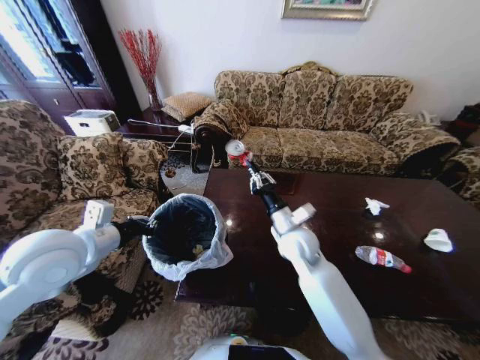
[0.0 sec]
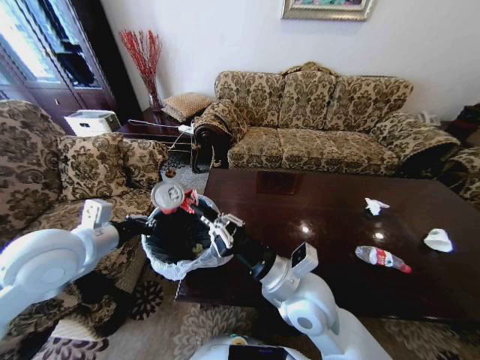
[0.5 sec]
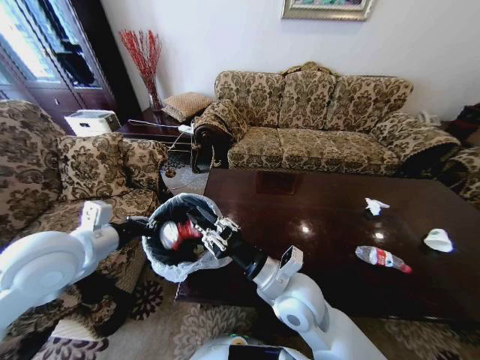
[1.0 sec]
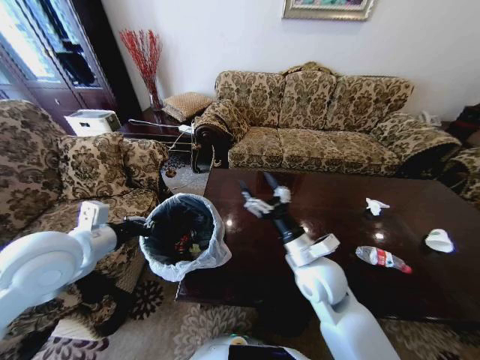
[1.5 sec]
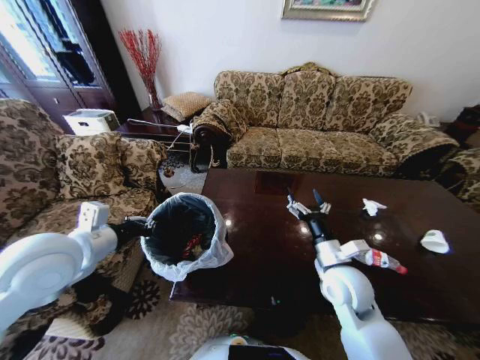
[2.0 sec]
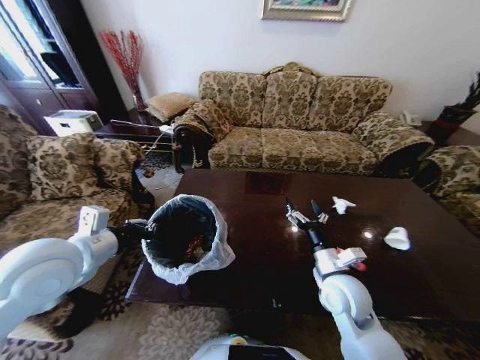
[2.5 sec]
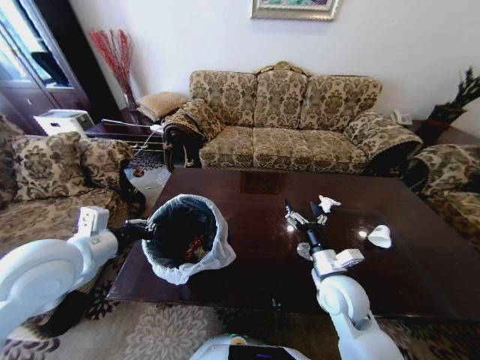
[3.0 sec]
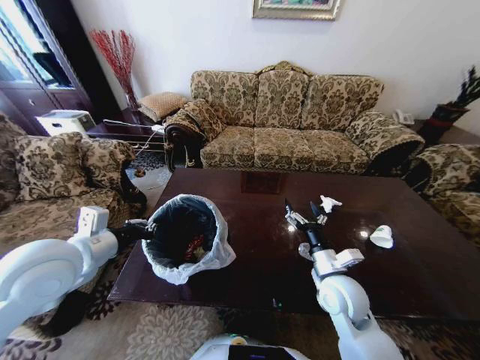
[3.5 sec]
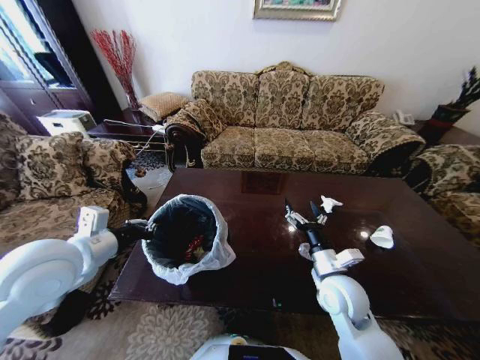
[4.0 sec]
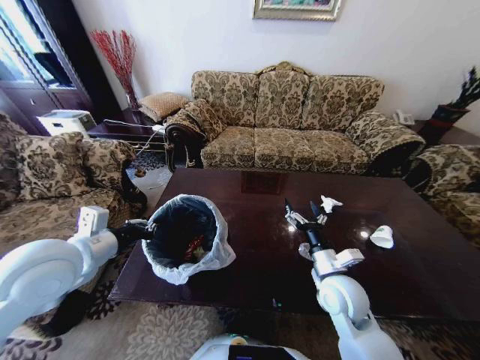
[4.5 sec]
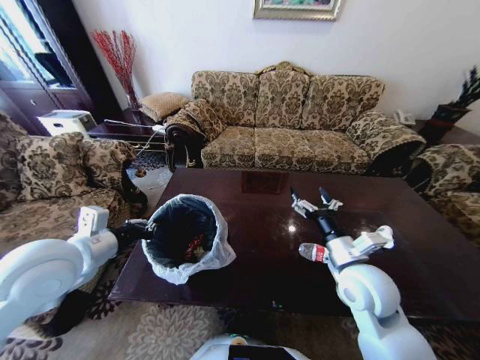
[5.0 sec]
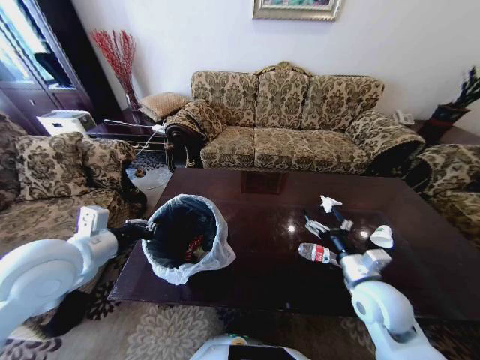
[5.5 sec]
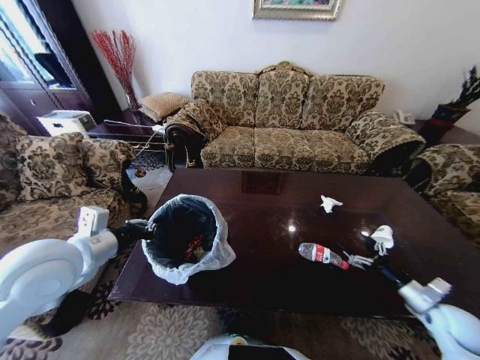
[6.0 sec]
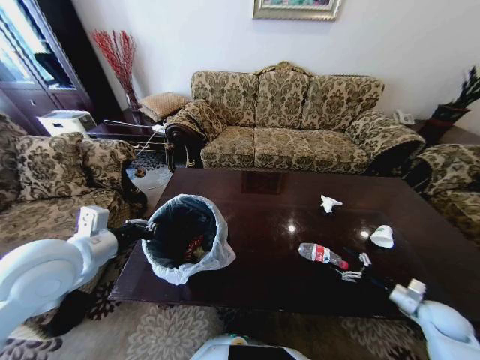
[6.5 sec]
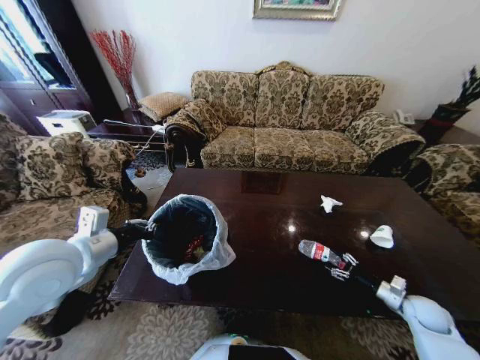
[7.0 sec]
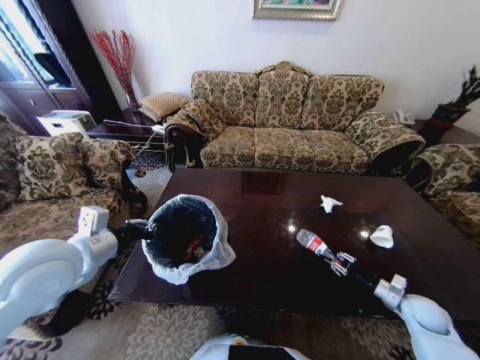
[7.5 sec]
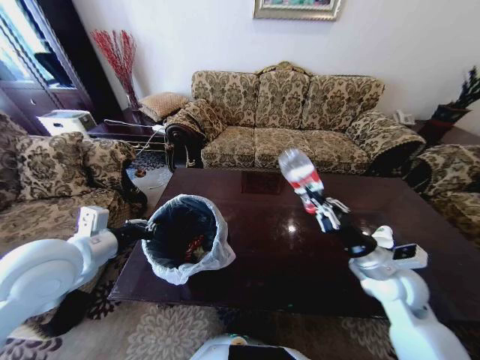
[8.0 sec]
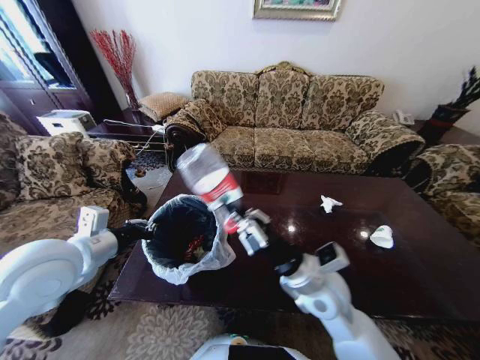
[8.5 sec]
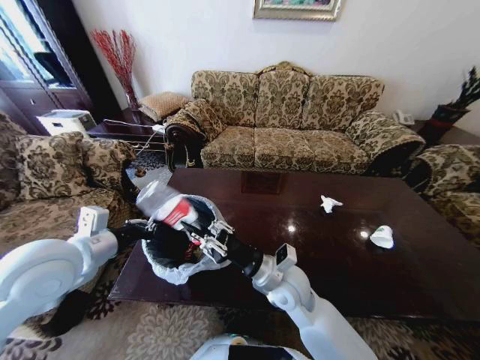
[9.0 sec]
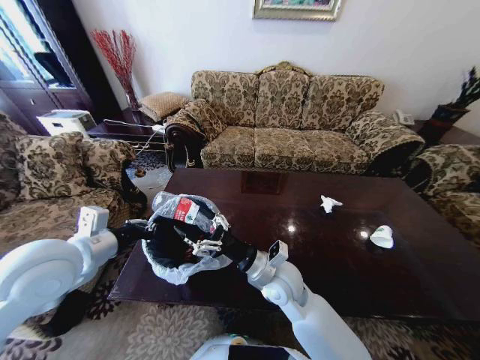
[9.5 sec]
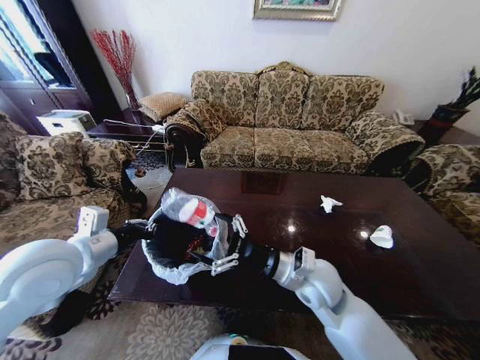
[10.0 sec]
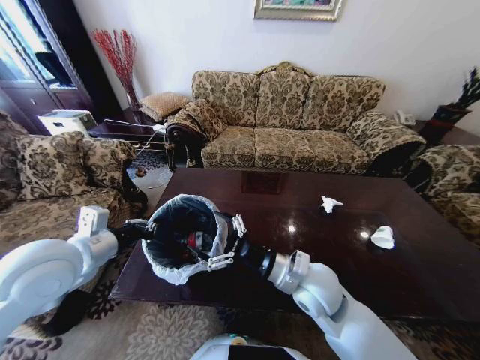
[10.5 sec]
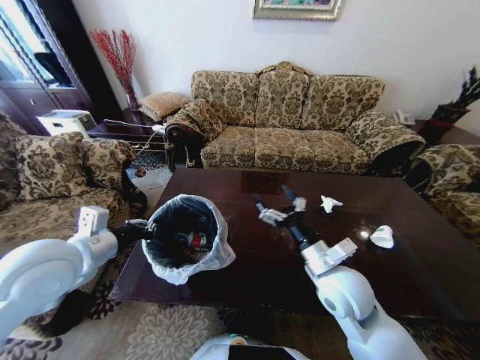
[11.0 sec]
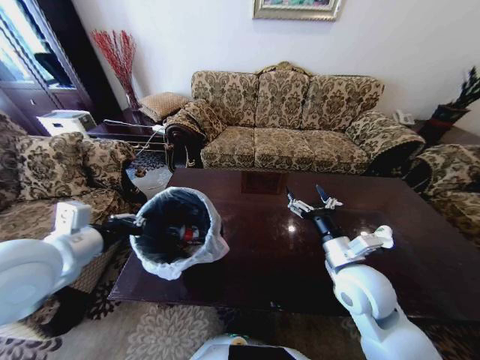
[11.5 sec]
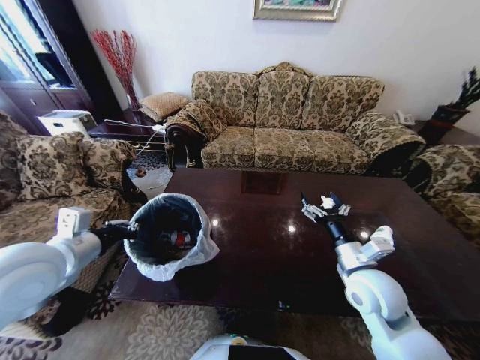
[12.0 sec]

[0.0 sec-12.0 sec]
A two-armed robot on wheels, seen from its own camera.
Task of the whole recording: Move to the front of the table and place the trash on the table into the trash bin.
0.0 sec to 2.0 sec: The right gripper travels backward and to the right by some 15 cm, and opens.
4.0 sec to 6.0 sec: The right gripper travels to the right by about 30 cm.
6.0 sec to 8.0 sec: The right gripper heads to the left and upward, covering some 25 cm, and closes its fingers.
8.0 sec to 10.0 sec: The right gripper is displaced to the left by approximately 15 cm, and opens.
10.0 sec to 12.0 sec: The right gripper is displaced to the right by about 10 cm.

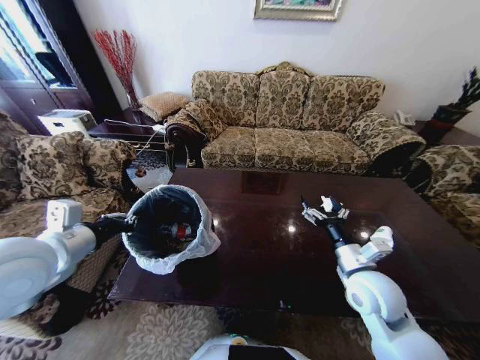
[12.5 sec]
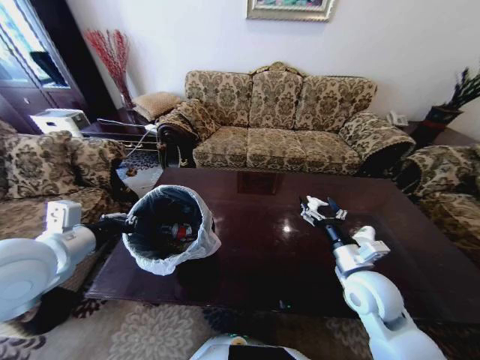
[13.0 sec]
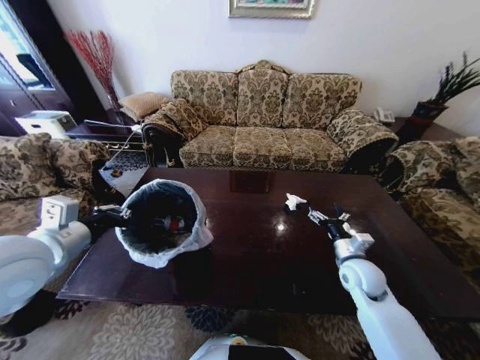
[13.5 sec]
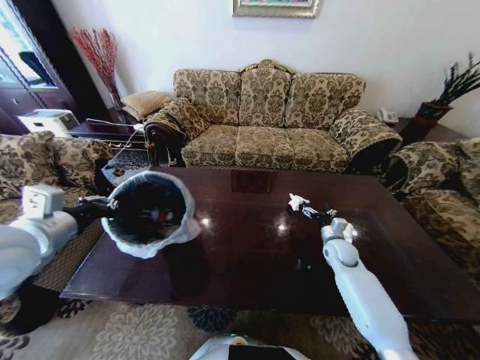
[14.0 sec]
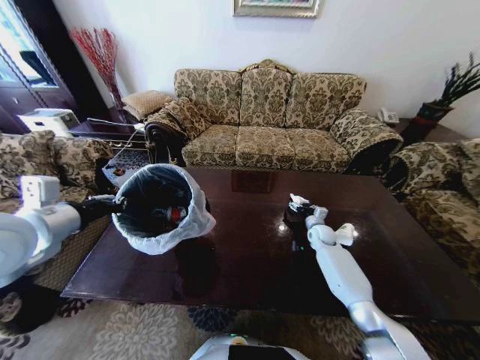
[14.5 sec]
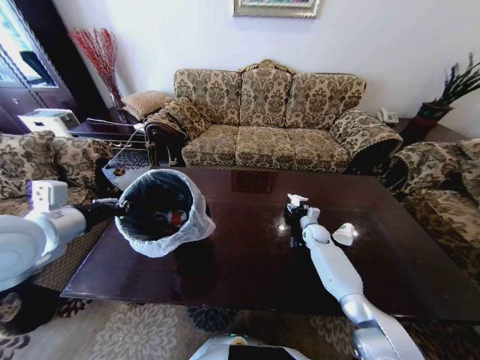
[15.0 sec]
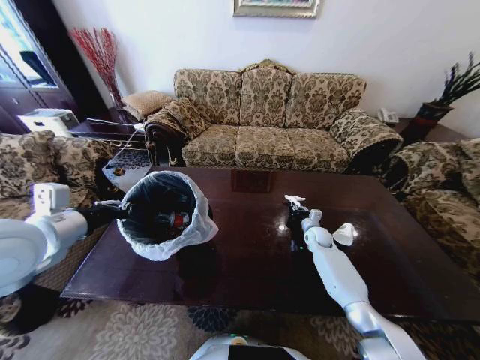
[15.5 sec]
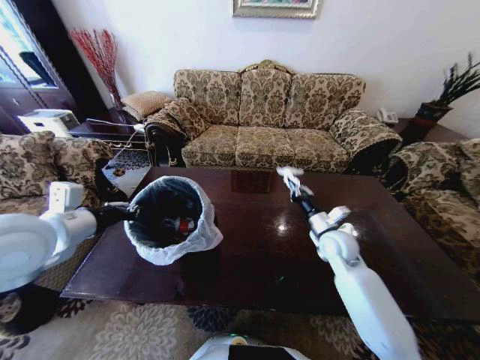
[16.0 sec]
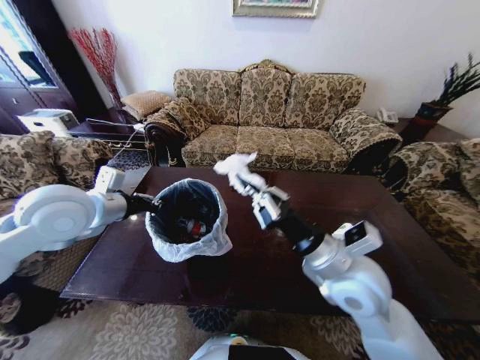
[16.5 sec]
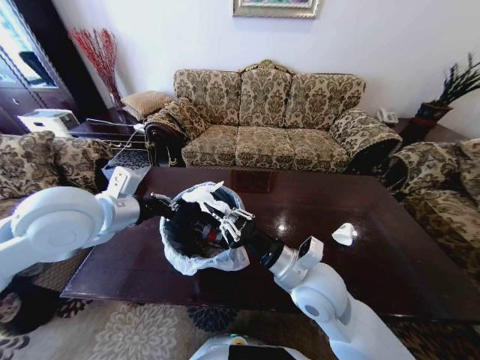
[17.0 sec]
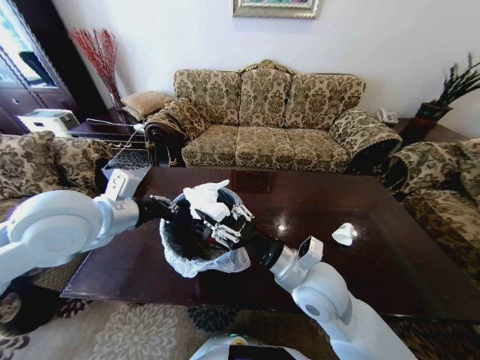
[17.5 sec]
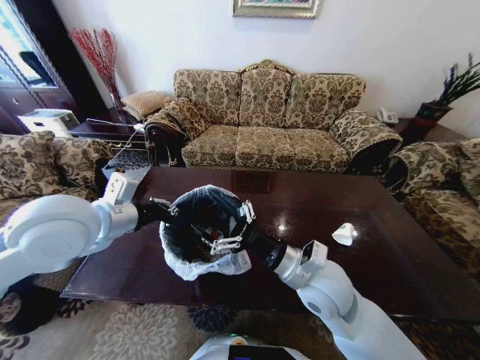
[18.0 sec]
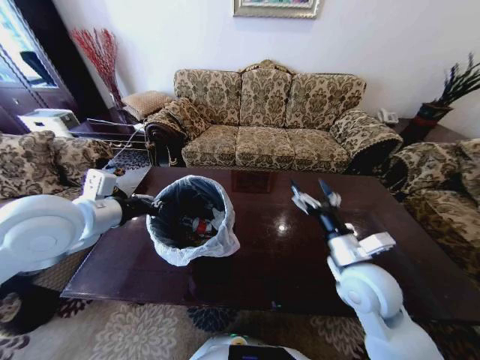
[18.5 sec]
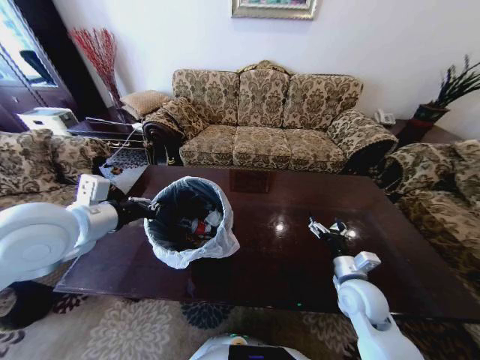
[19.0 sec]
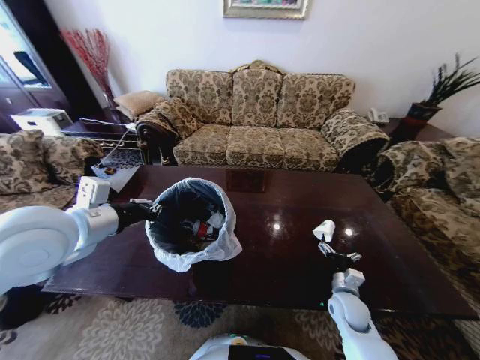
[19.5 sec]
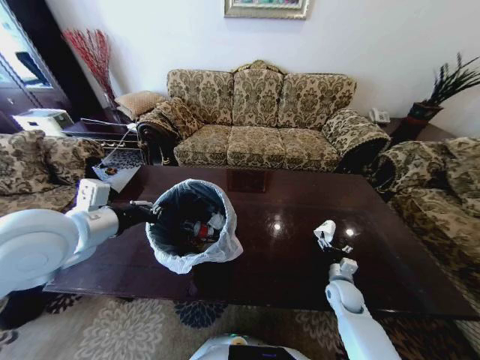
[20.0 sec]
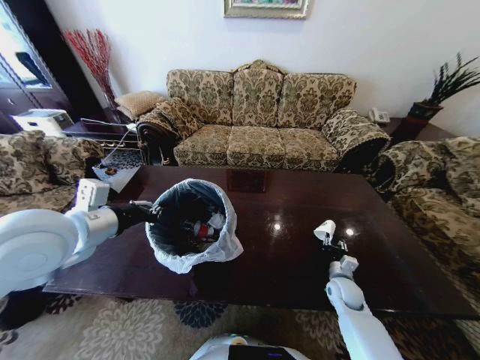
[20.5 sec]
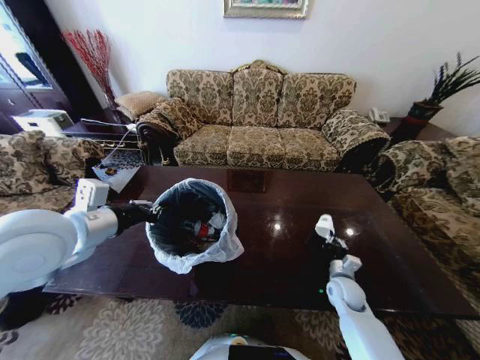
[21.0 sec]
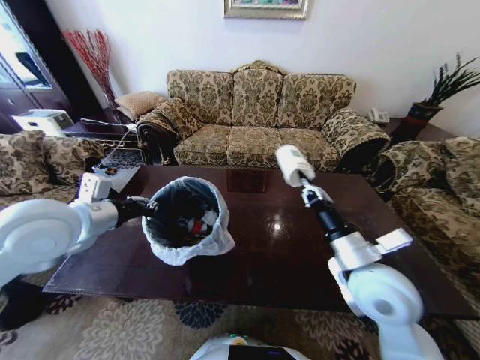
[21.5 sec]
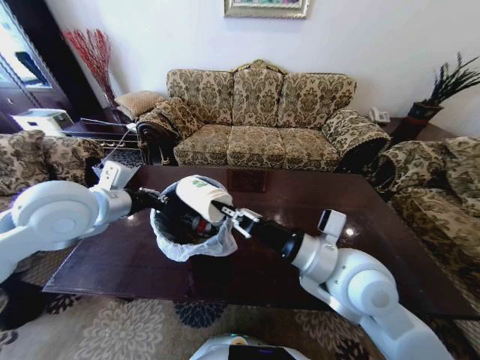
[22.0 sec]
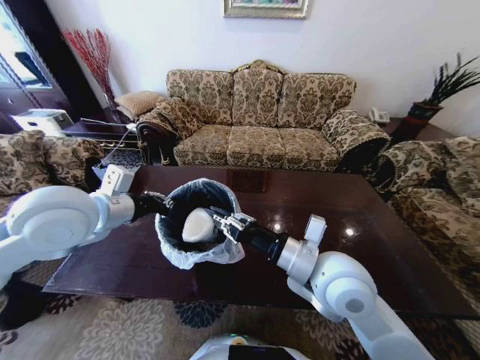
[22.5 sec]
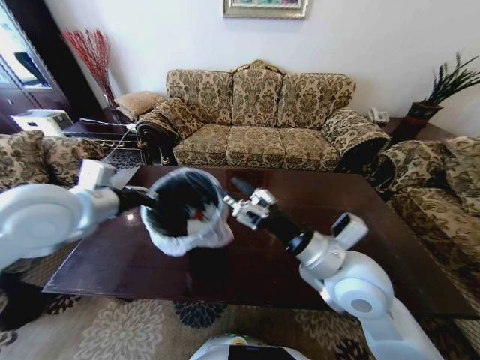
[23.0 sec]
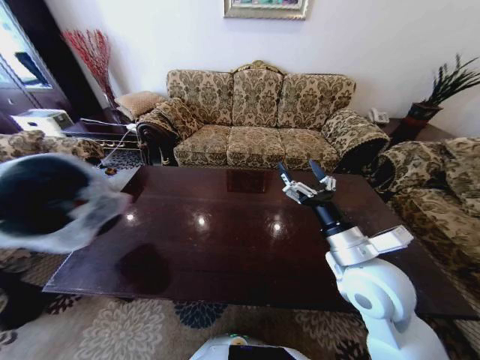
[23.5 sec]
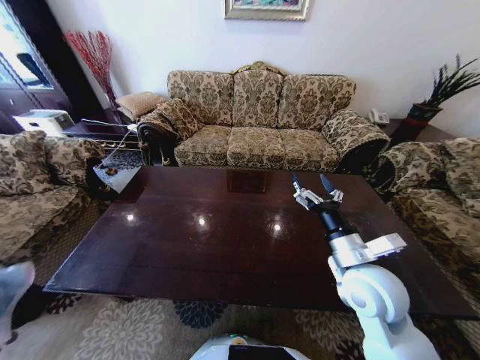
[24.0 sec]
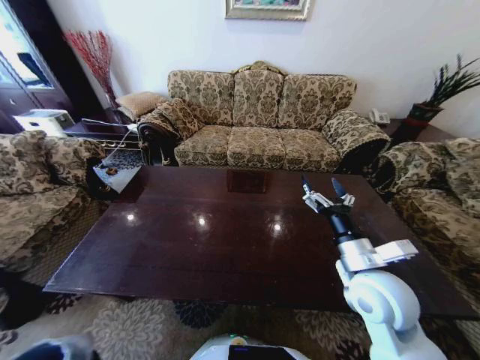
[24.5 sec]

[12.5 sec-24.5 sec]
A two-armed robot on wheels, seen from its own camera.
Task of the whole recording: Move to the front of the table and place the trash on the table into the trash bin.
12.5 sec to 14.5 sec: The right gripper is displaced forward and downward by approximately 30 cm.
14.5 sec to 16.5 sec: The left gripper goes about 5 cm forward; the right gripper goes roughly 40 cm backward, upward and to the left, and closes its fingers.
16.5 sec to 18.5 sec: The right gripper shifts by roughly 5 cm, and opens up.
18.5 sec to 20.5 sec: The right gripper is displaced downward and to the right by some 25 cm, and closes up.
20.5 sec to 22.5 sec: The right gripper is displaced upward and to the left by roughly 35 cm.
22.5 sec to 24.5 sec: The right gripper moves to the right and downward, about 10 cm, and opens up, while the left gripper goes about 60 cm downward, backward and to the left.

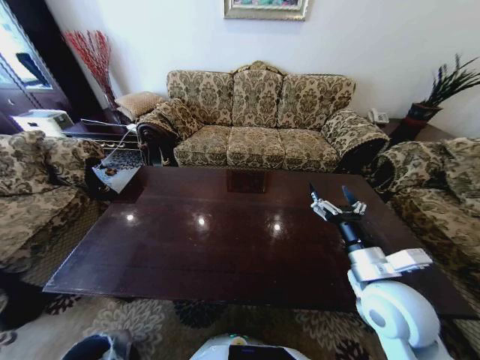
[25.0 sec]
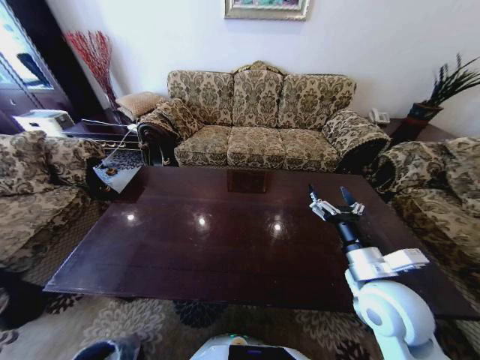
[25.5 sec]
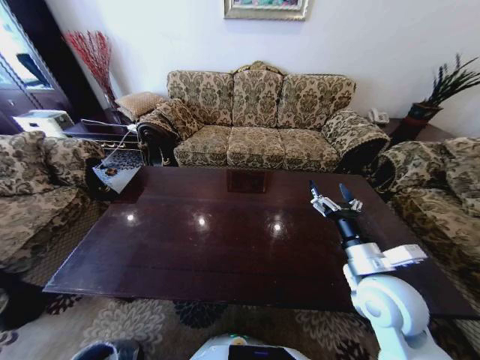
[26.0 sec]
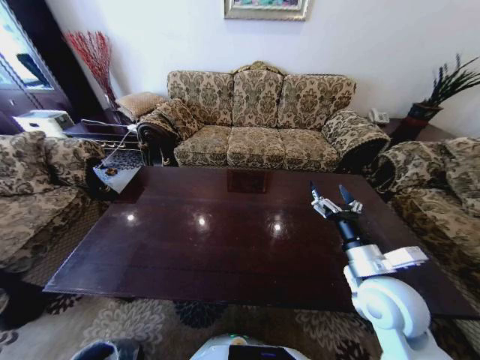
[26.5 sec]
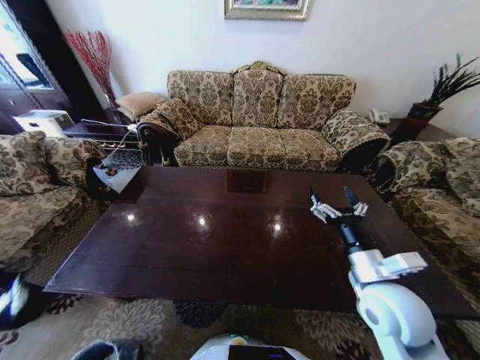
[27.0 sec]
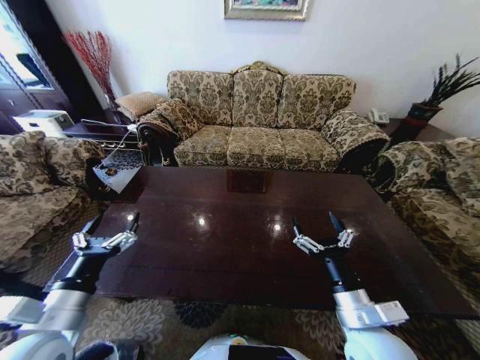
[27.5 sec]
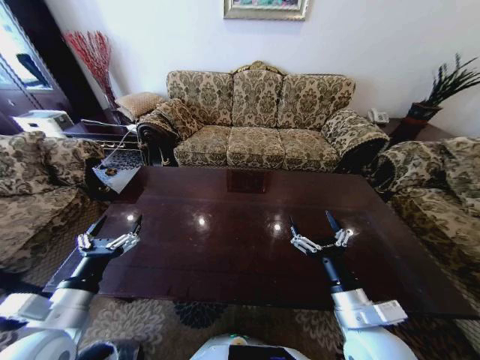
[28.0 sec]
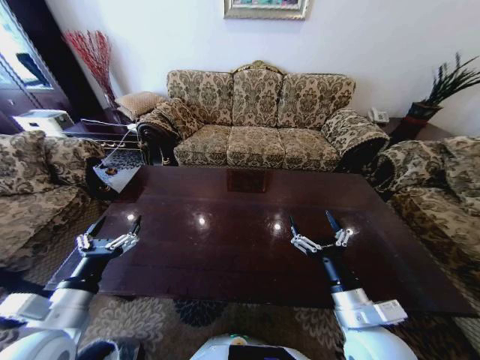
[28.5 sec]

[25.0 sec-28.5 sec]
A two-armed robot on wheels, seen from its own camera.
Task of the whole recording: Move to the front of the table and place the trash on the table into the trash bin.
25.0 sec to 27.0 sec: The left gripper goes some 30 cm upward, and opens up.
27.0 sec to 28.5 sec: The right gripper shifts some 5 cm backward. The left gripper shifts roughly 15 cm to the right, forward and upward.
